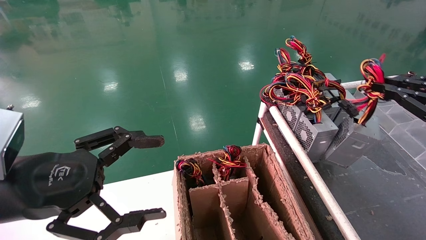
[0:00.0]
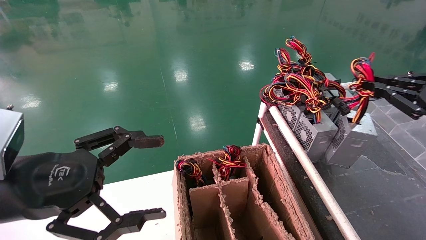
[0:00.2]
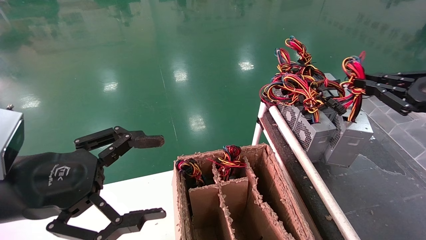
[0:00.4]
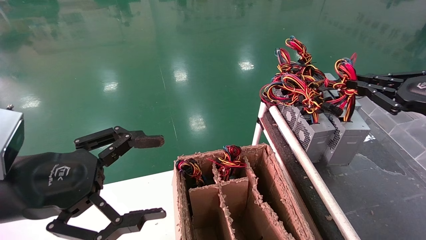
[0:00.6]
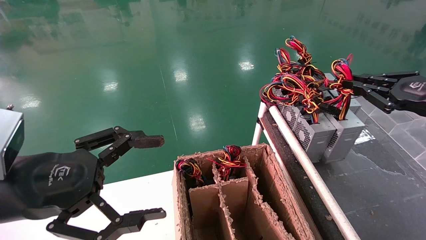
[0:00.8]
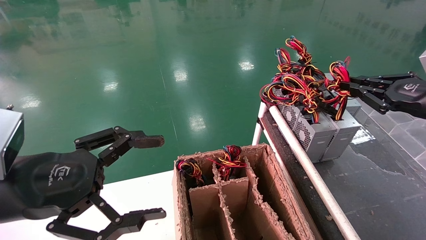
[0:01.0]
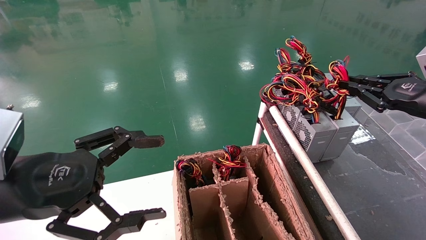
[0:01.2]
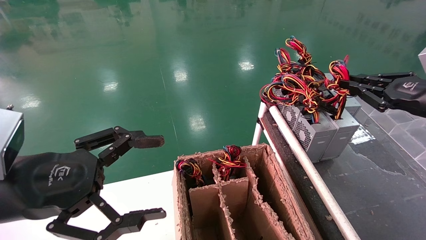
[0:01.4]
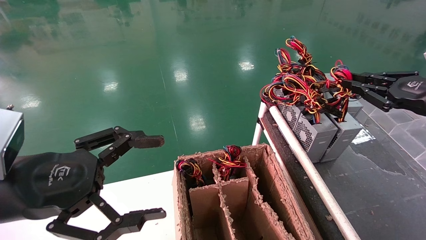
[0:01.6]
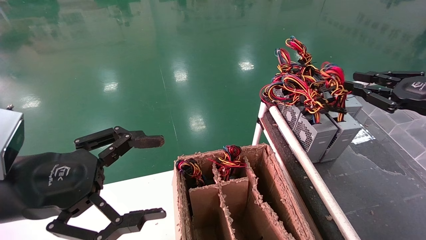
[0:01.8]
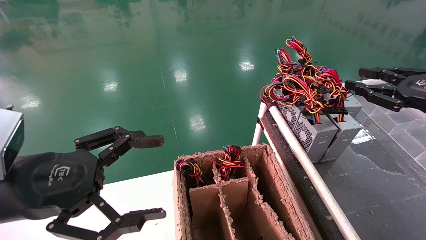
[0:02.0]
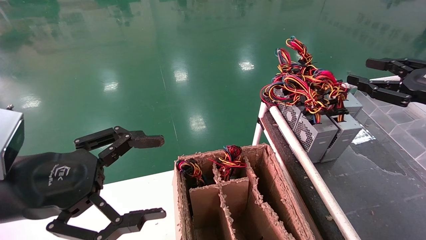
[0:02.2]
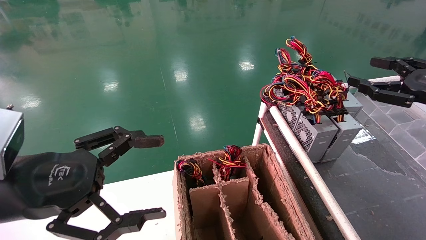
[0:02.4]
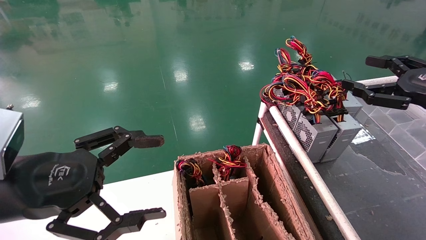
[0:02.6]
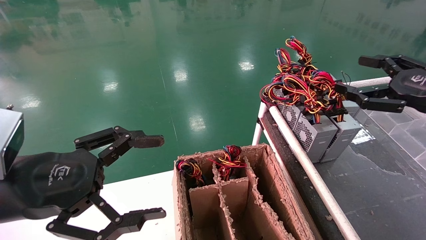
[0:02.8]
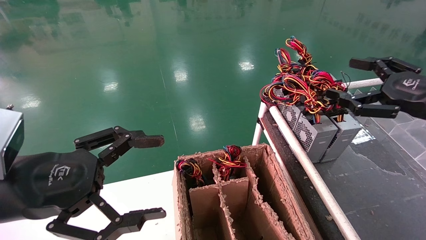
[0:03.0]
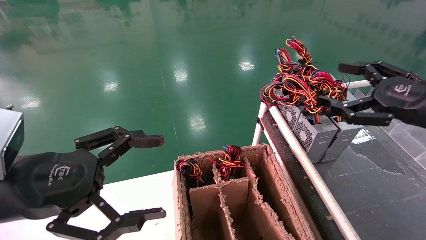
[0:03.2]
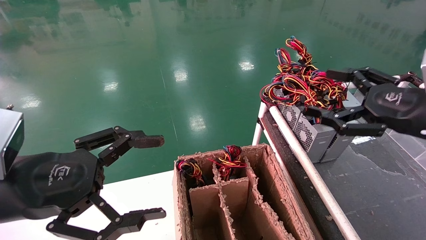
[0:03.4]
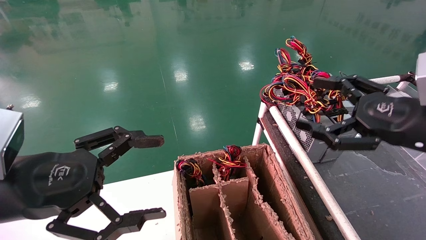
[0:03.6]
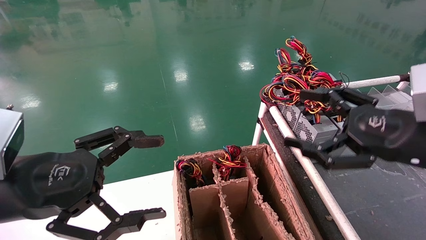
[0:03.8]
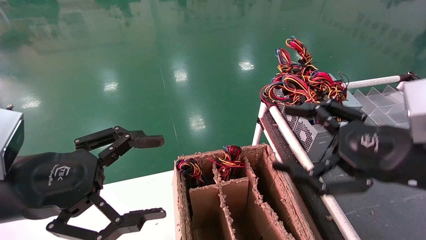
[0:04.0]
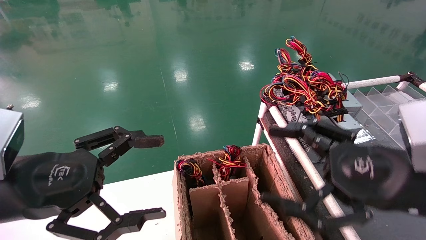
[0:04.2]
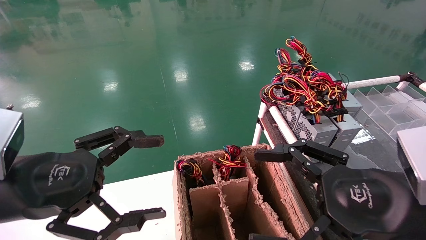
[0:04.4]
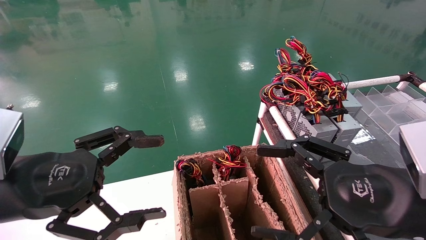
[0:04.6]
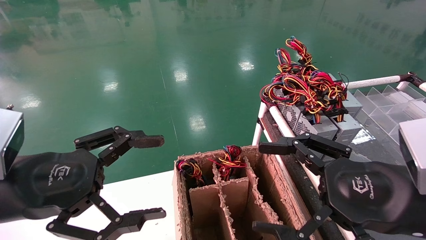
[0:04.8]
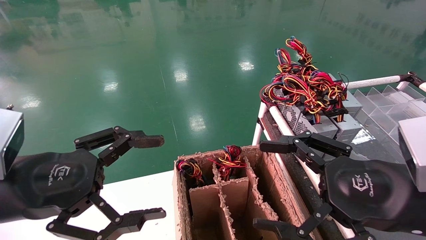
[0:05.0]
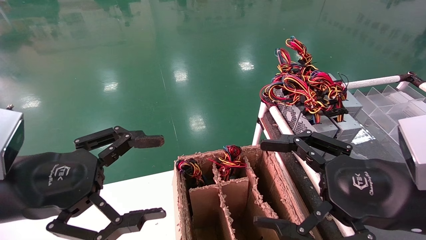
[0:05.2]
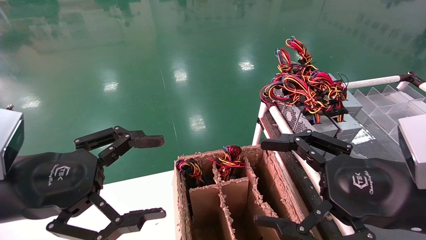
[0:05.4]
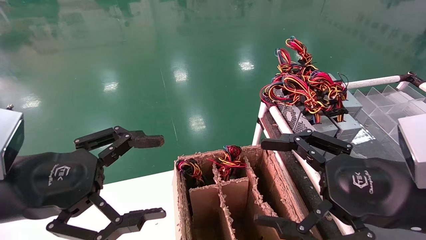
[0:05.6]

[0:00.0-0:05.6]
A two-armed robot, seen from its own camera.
0:00.0 to 0:01.4: The right gripper heads forward, covering roughly 5 cm.
0:01.4 to 0:02.8: The right gripper opens its fingers.
0:02.8 to 0:04.2: The right gripper heads to the left, backward and downward, covering some 20 cm.
0:04.2 to 0:05.6: The grippers stay close to where they were, moving slightly.
